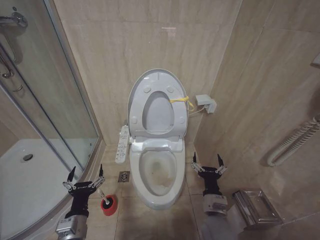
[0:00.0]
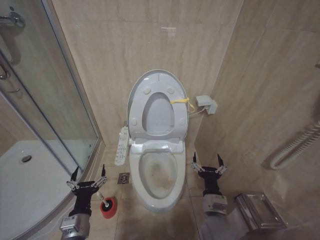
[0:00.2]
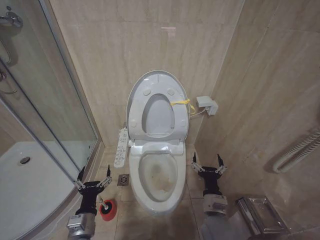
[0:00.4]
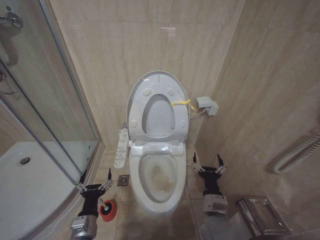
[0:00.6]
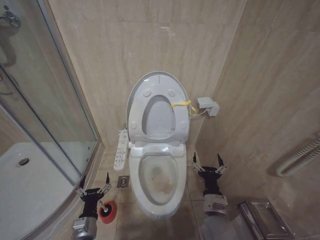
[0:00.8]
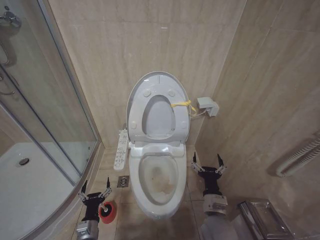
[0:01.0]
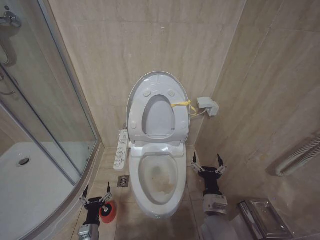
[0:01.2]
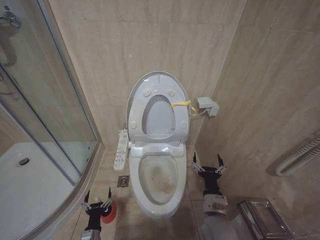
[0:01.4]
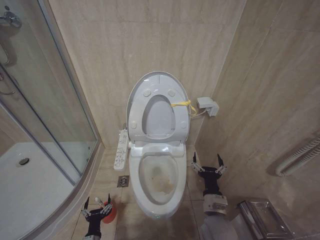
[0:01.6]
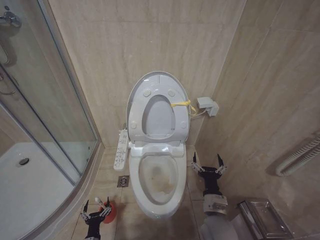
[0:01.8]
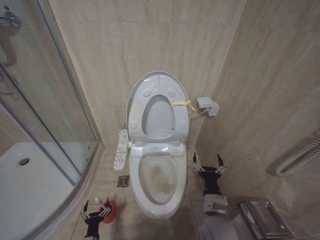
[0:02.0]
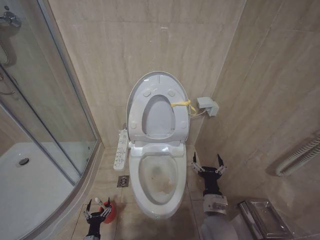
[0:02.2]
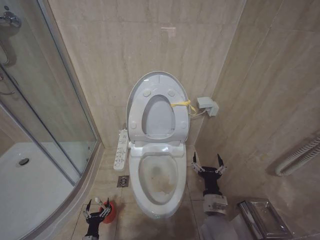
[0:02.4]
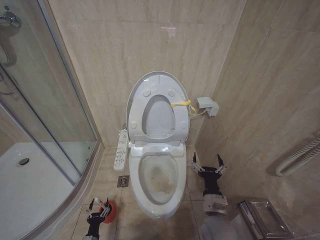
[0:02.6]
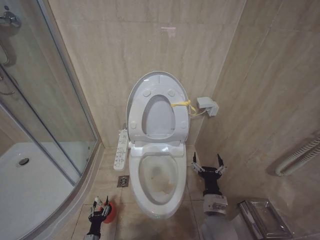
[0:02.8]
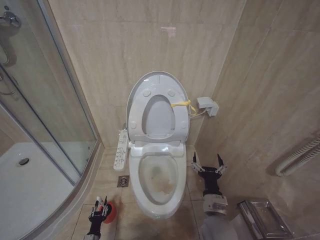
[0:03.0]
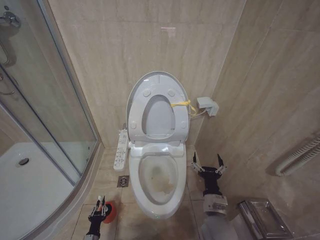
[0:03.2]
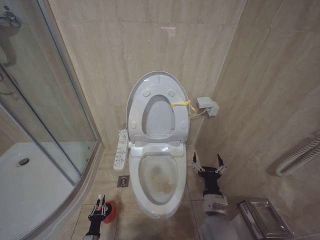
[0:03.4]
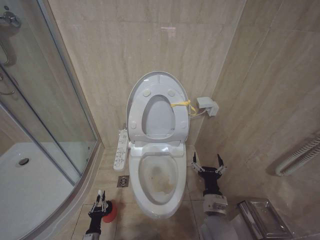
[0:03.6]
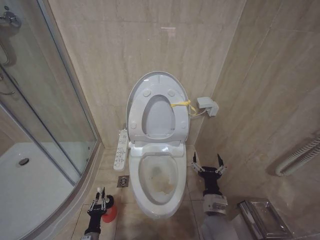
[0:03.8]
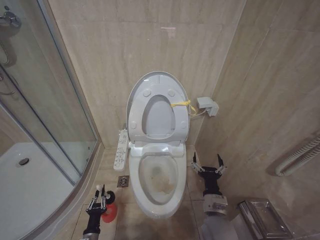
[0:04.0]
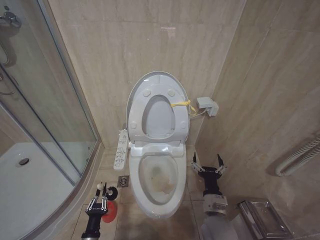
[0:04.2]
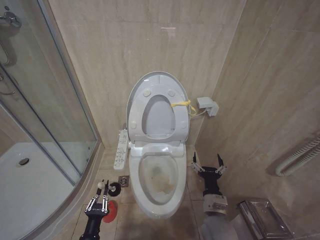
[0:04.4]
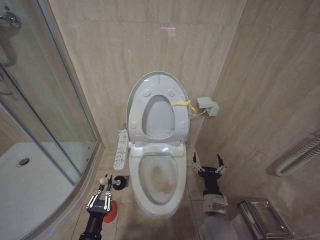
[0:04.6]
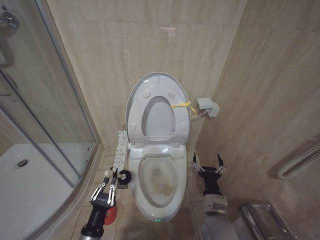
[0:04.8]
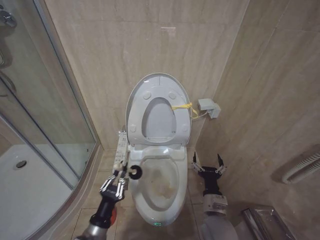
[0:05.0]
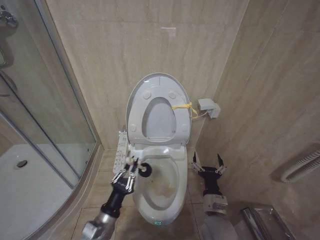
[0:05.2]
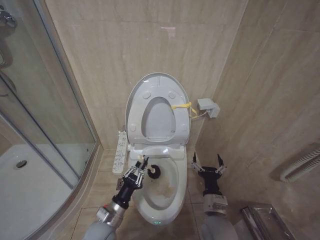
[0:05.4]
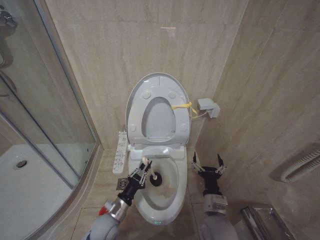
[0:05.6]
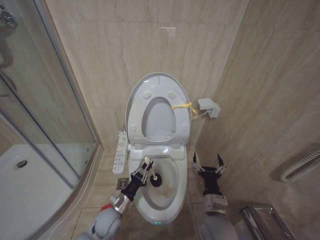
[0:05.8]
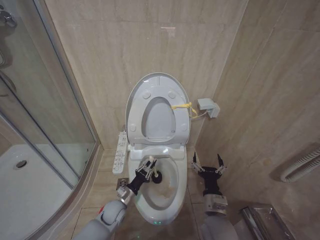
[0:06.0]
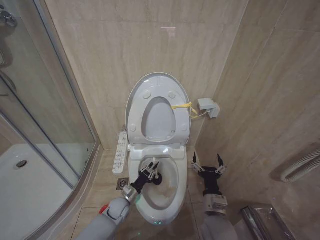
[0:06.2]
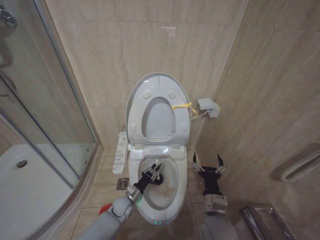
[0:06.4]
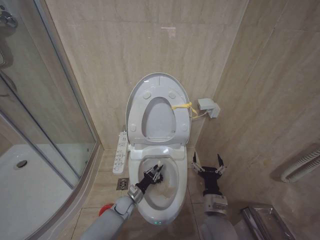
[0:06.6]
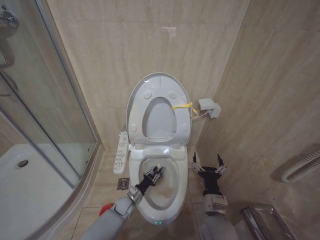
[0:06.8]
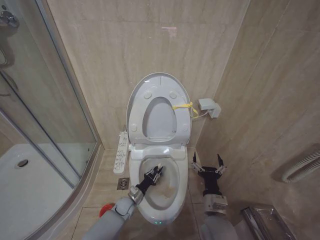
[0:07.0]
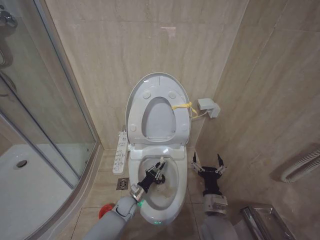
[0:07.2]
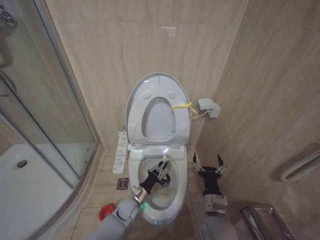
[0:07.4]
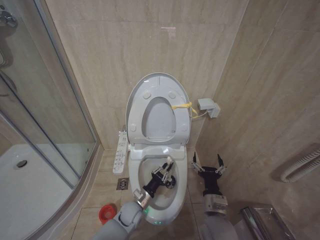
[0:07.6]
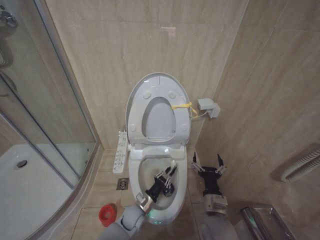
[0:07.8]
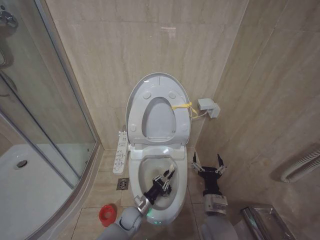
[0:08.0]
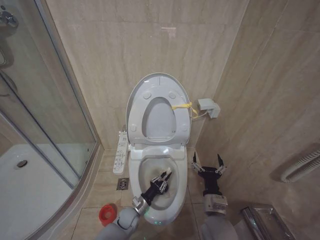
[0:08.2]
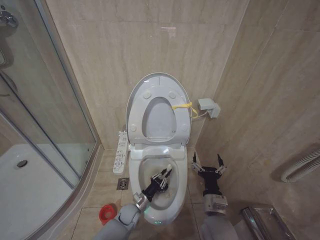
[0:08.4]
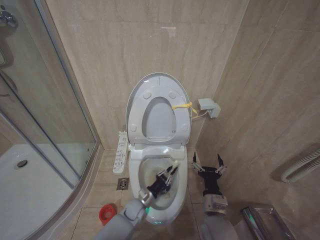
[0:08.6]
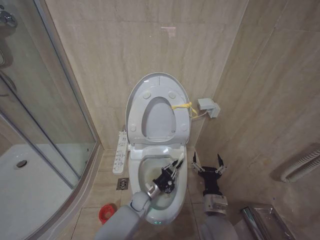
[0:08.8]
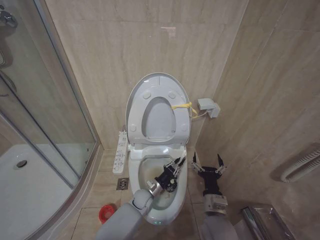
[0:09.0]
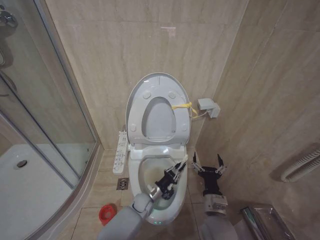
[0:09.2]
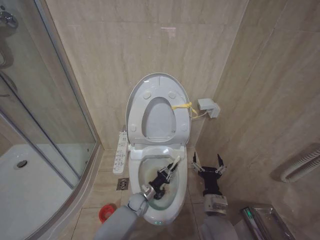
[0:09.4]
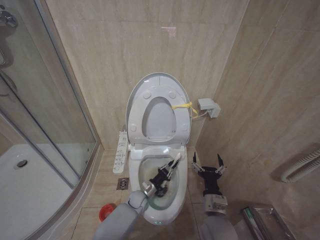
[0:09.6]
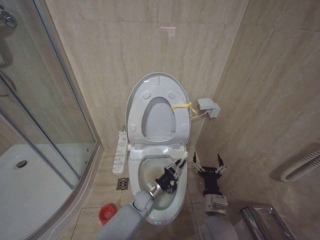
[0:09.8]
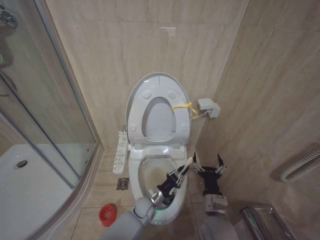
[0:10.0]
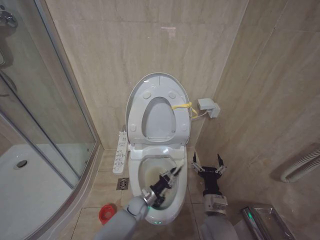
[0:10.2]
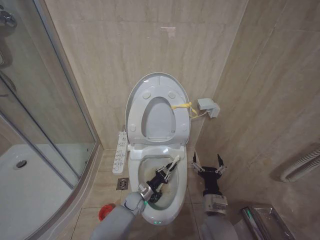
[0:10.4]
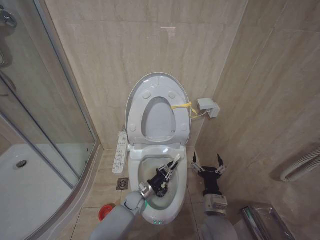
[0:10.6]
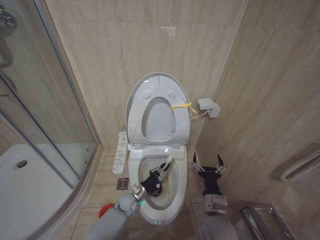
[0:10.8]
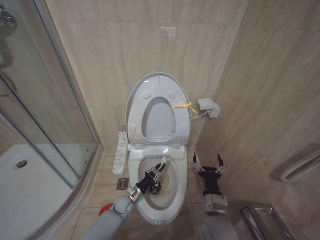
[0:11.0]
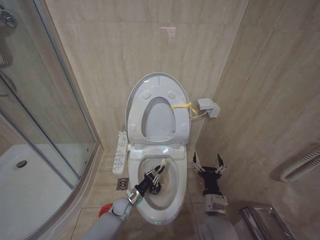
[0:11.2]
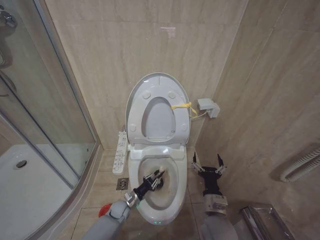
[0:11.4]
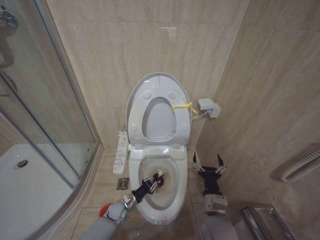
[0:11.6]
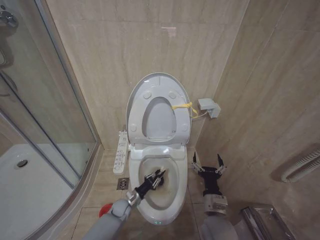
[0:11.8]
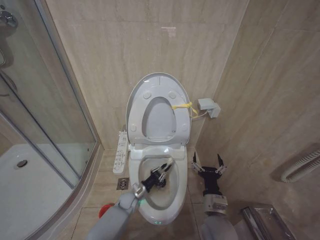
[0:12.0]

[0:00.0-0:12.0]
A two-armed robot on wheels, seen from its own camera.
Task of the whole recording: Open the toilet lid, clean the toilet bowl with a toilet brush, close the toilet lid, and flush.
0:00.0 to 0:01.6: The left gripper heads downward, covering some 20 cm.
0:01.6 to 0:03.0: The left gripper is displaced downward by roughly 10 cm, and closes.
0:03.0 to 0:04.4: The left gripper goes roughly 15 cm upward, and closes up.
0:04.4 to 0:06.0: The left gripper moves forward and to the right, about 20 cm.
0:06.0 to 0:07.6: The left gripper is displaced to the right by roughly 5 cm, and reaches roughly 10 cm downward, then returns.
0:07.6 to 0:09.0: The left gripper moves to the right, about 5 cm.
0:09.0 to 0:10.4: The left gripper moves approximately 5 cm.

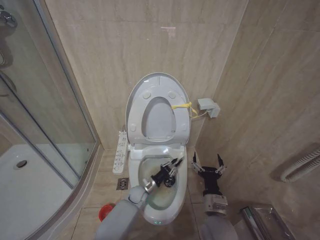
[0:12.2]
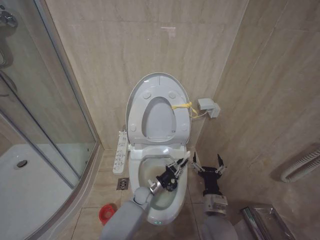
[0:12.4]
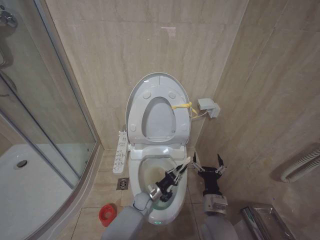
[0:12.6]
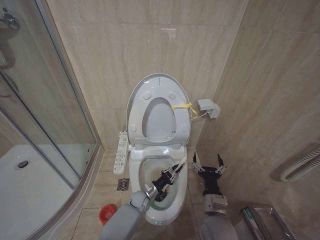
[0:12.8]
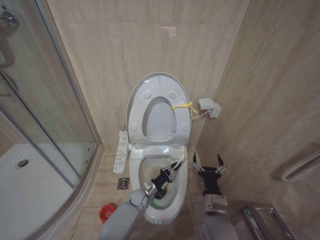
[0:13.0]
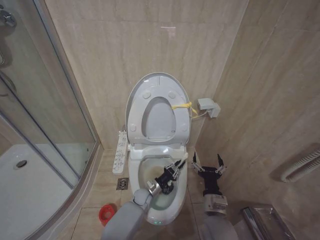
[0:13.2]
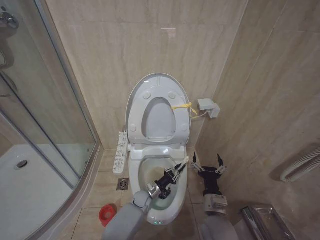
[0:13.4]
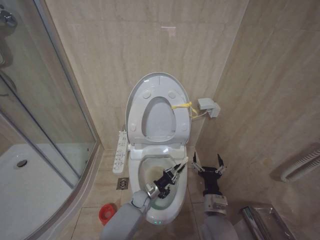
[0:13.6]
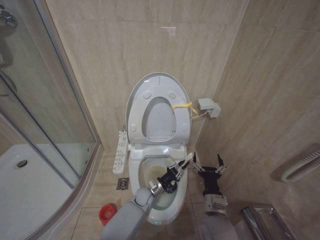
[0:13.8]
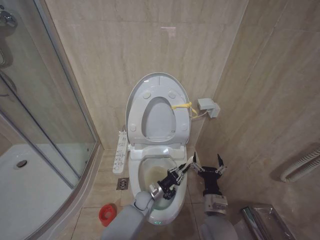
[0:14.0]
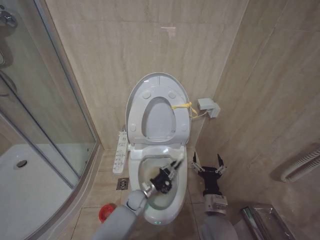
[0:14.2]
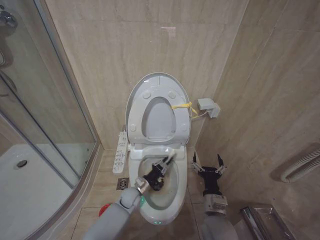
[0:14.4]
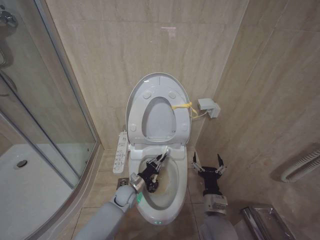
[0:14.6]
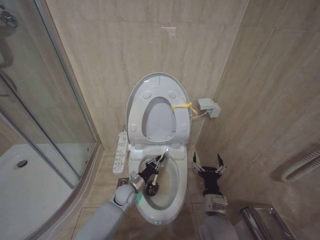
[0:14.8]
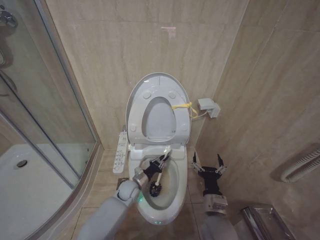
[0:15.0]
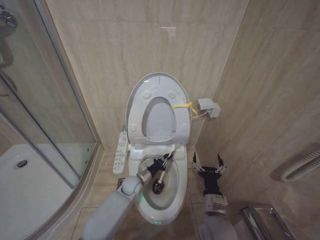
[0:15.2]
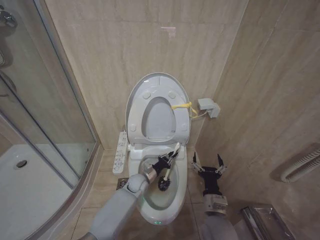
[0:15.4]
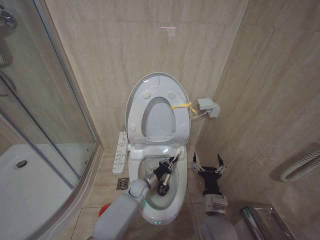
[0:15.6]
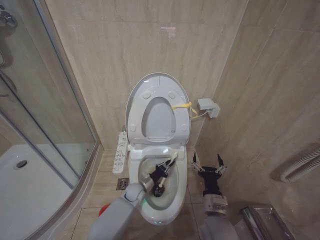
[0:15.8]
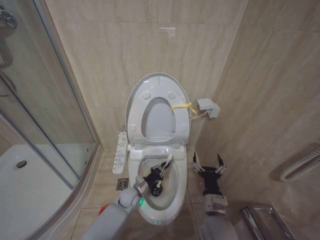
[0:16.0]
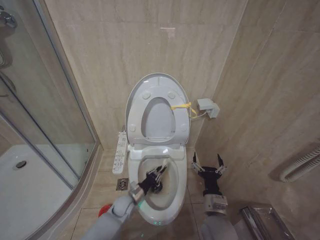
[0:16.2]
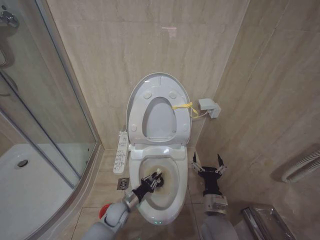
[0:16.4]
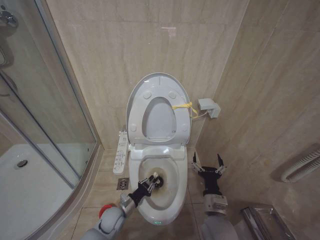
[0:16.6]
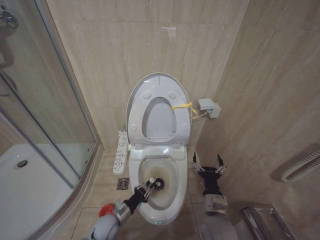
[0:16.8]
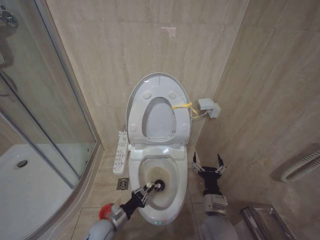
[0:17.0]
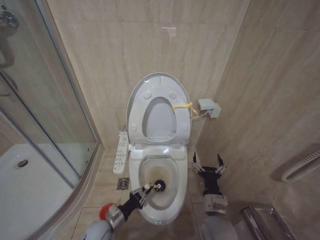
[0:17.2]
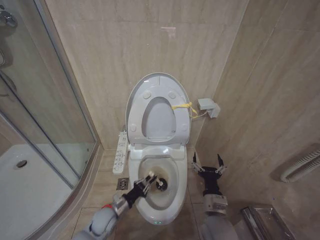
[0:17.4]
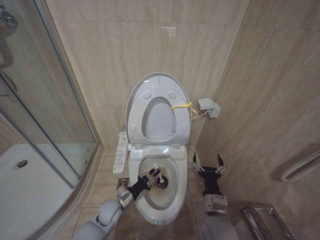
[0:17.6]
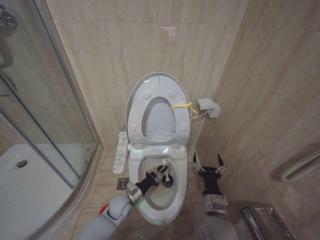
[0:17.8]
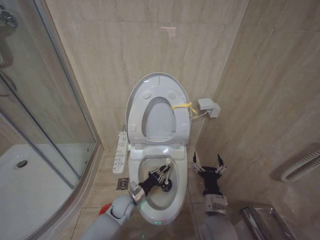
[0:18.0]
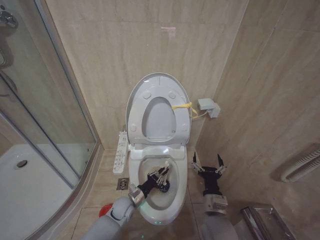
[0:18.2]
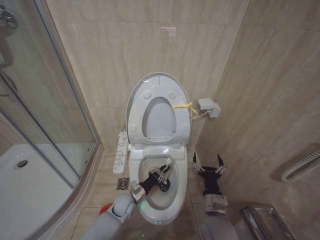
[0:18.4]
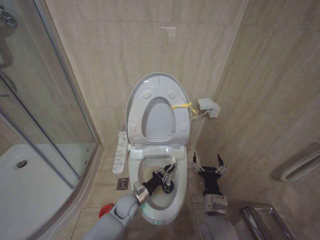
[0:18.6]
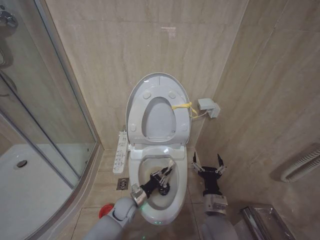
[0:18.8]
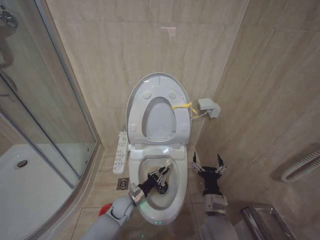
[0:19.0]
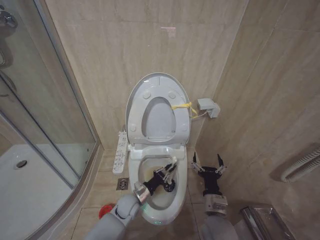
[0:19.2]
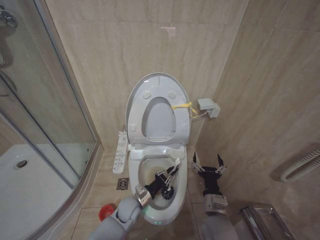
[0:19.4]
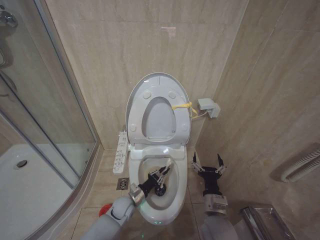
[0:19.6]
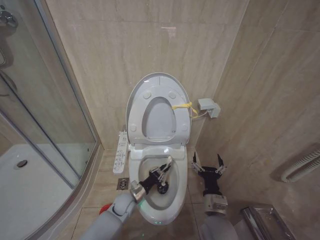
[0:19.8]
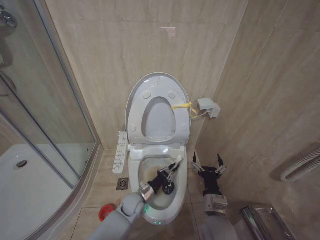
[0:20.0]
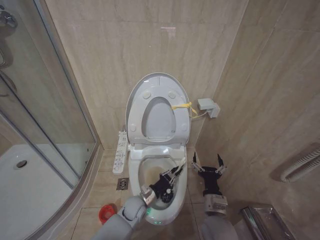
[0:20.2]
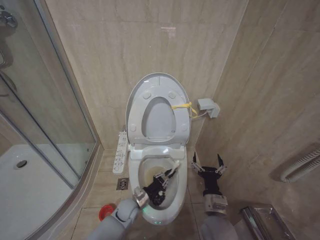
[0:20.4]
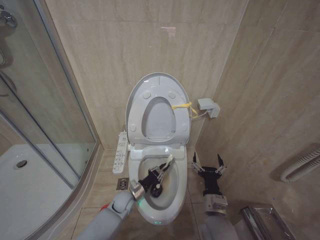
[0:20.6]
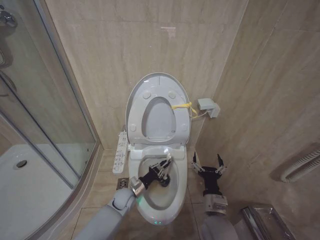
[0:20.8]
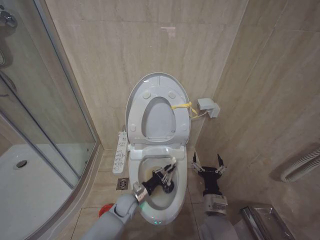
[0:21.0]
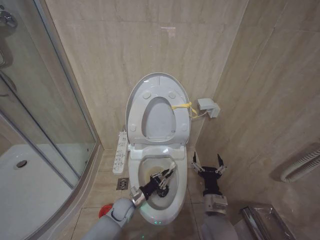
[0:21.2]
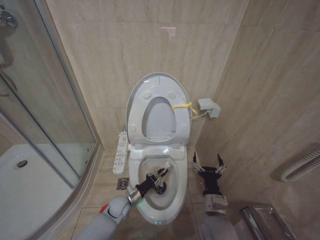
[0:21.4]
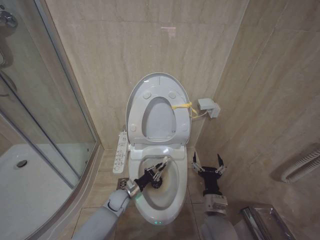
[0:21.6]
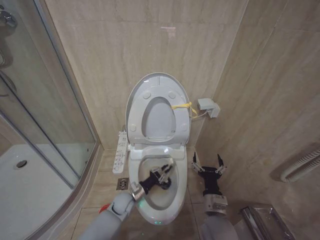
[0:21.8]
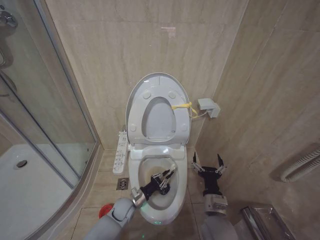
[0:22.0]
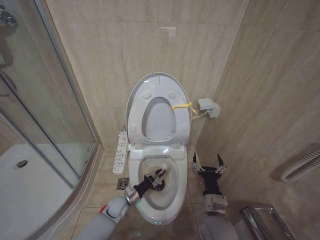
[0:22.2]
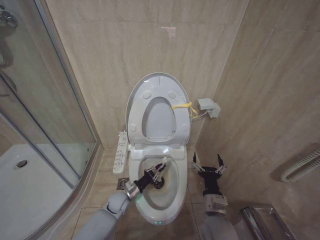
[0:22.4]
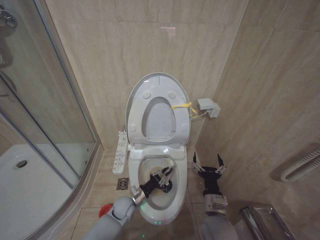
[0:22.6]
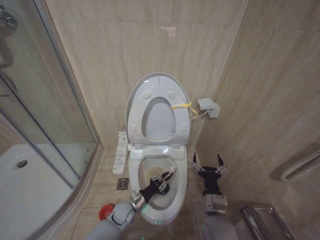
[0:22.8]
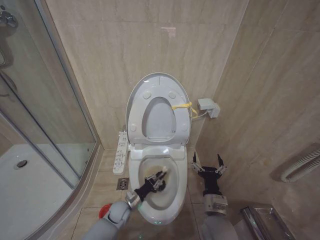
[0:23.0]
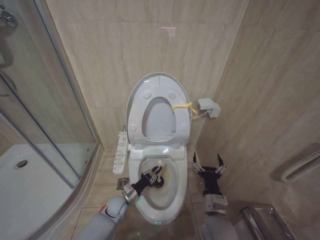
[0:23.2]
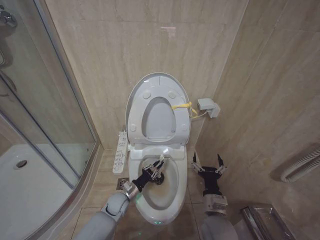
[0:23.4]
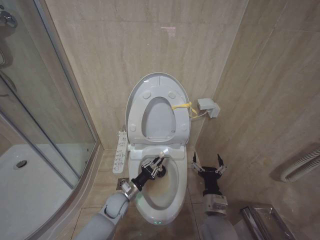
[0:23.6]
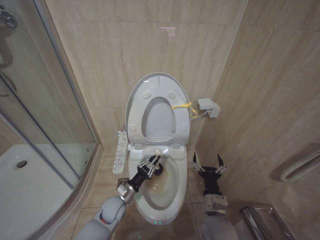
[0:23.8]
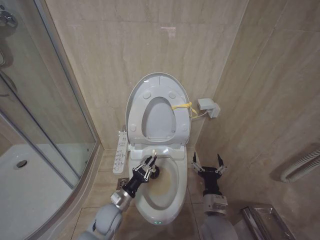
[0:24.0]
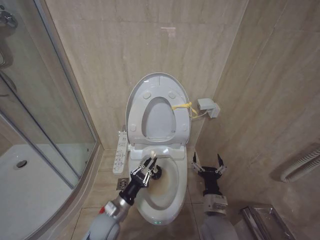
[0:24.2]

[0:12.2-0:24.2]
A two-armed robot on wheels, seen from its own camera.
Task of the whole recording: Open the toilet lid, clean the toilet bowl with a toilet brush, close the toilet lid, and flush.
0:12.2 to 0:13.8: There are only small adjustments of the grippers.
0:13.8 to 0:15.2: The left gripper heads upward and to the left, covering approximately 10 cm.
0:15.2 to 0:16.6: The left gripper travels backward and to the left by roughly 10 cm.
0:16.6 to 0:18.2: The left gripper moves approximately 5 cm backward and comes back.
0:19.8 to 0:21.2: The grippers move only a little.
0:22.6 to 0:24.2: The left gripper travels backward and upward by about 10 cm.
